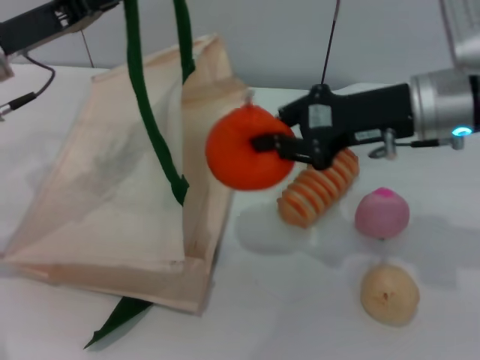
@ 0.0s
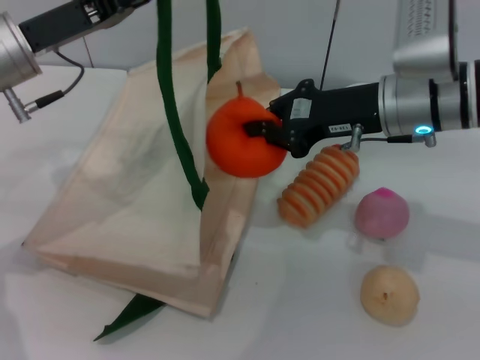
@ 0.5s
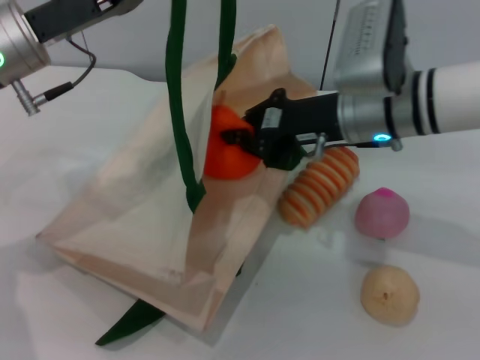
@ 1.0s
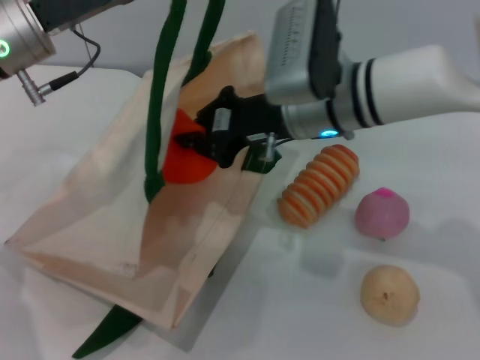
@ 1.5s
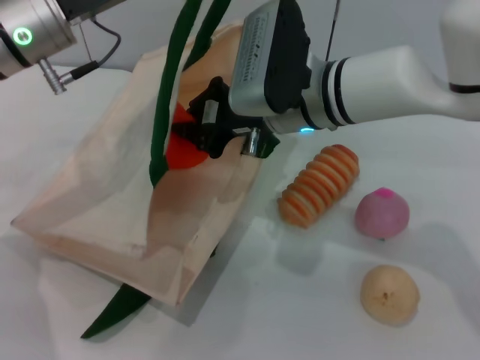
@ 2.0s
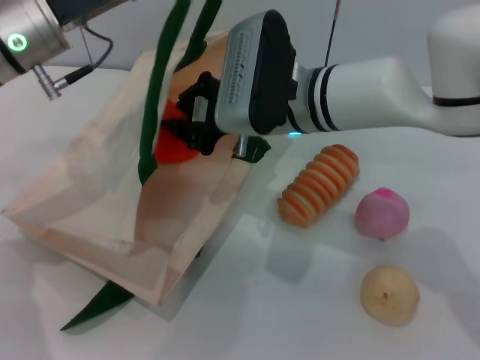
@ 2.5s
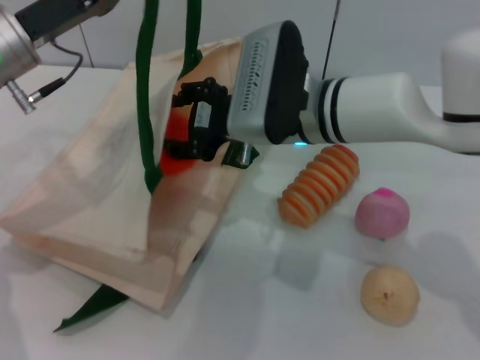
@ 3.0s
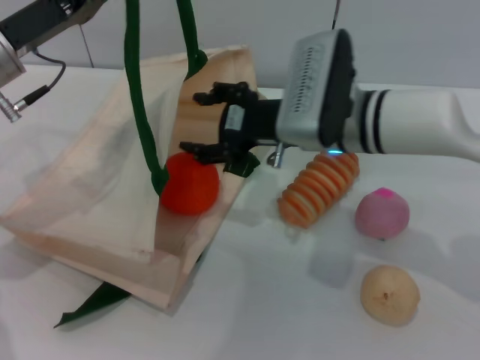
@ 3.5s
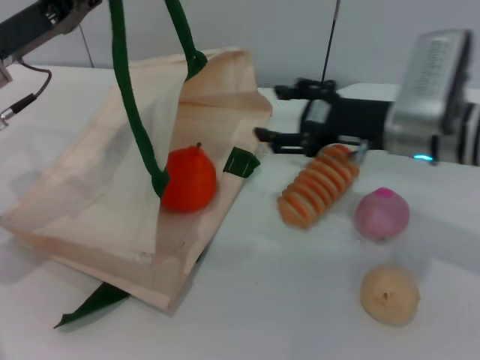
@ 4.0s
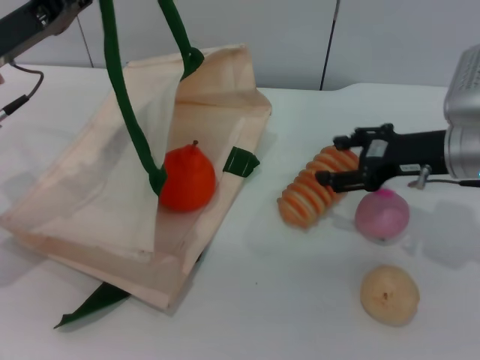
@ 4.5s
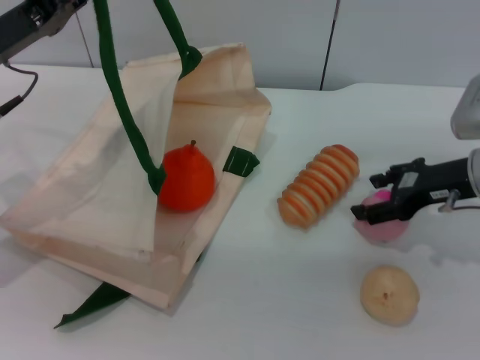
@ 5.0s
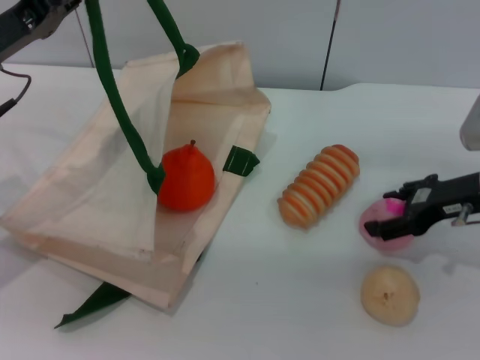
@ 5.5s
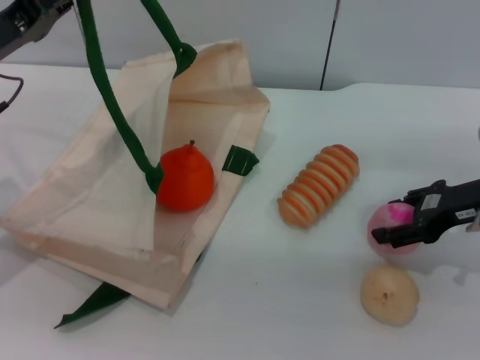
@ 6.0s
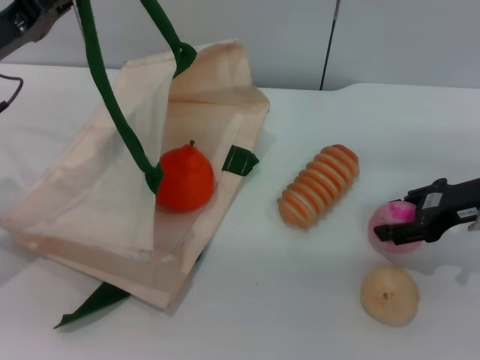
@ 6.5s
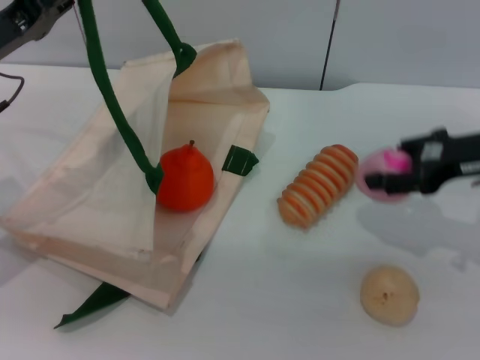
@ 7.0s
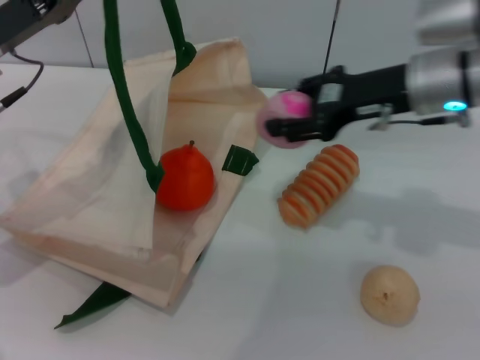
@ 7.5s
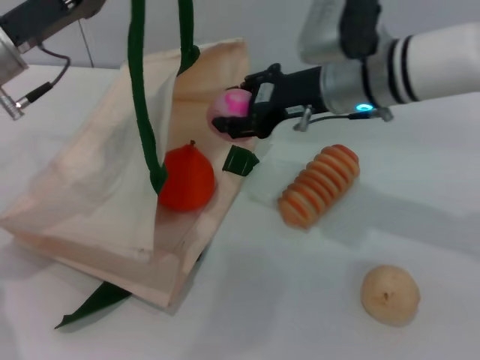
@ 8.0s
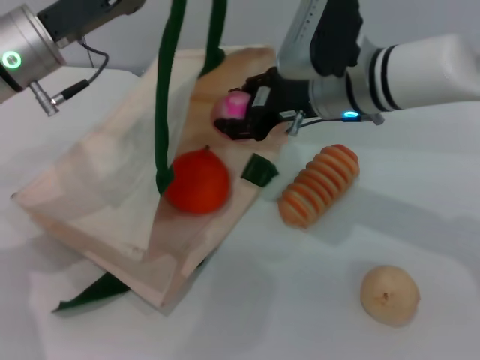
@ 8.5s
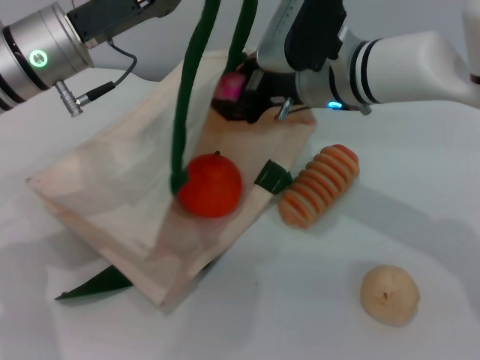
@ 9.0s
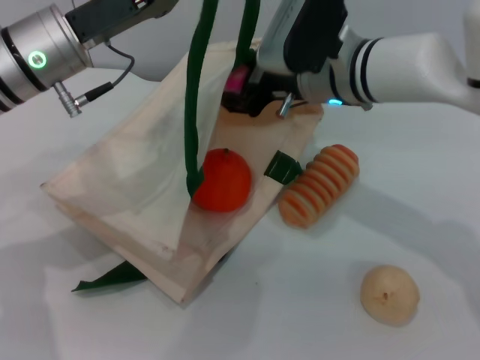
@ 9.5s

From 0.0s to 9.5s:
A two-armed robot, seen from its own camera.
Task of the whole recording: pick up the orange and peach from the table and place it in the white handbag.
Step, from 0.0s to 3.5s: Place the orange into the woven bag with the right gripper.
Step, from 4.0s to 7.0s: Pick up the peach with the right gripper.
From 0.0s to 2.0s: The left gripper moves to the right, about 5 cm; the right gripper travels to the left by about 15 cm.
From 2.0s to 4.0s: The left gripper goes approximately 5 cm to the left. Meanwhile the right gripper shifts roughly 10 cm to the right, and opens up.
From 4.0s to 5.5s: The right gripper heads to the right, covering some 10 cm.
From 5.5s to 7.5s: The right gripper is displaced to the left and upward by approximately 10 cm.
From 7.5s to 9.5s: The left gripper travels to the right by some 10 cm. Meanwhile the right gripper goes about 10 cm to the left.

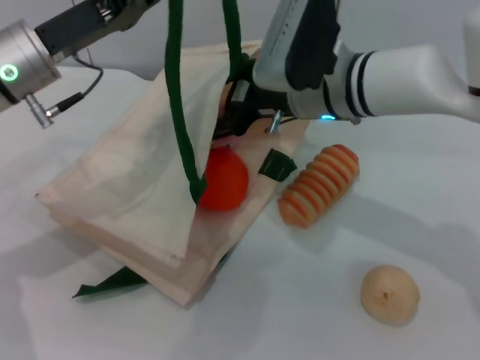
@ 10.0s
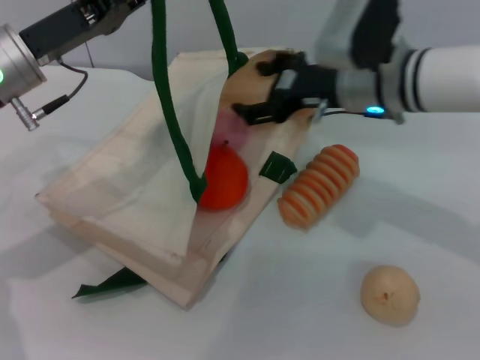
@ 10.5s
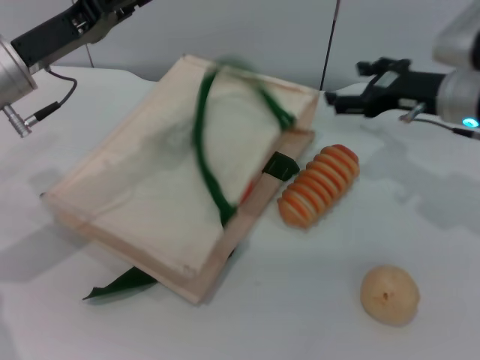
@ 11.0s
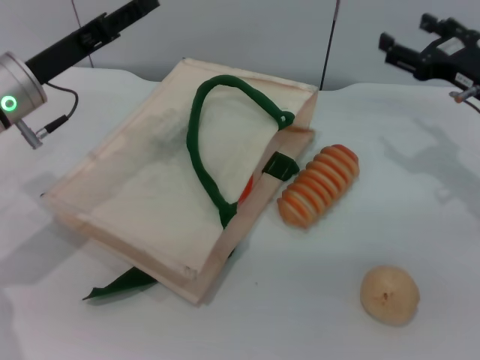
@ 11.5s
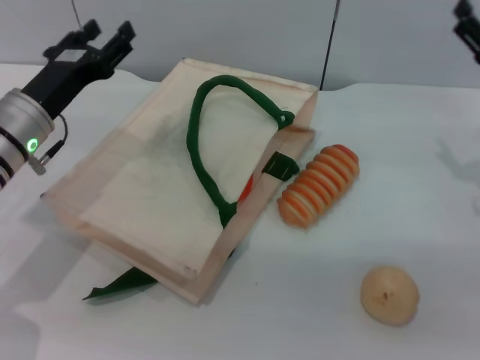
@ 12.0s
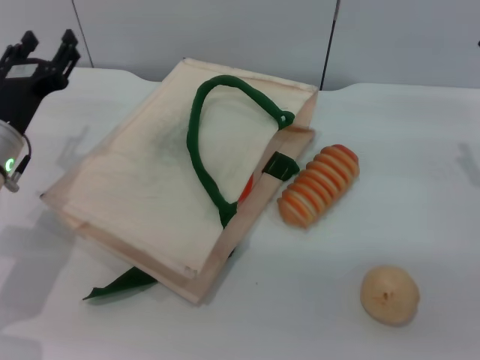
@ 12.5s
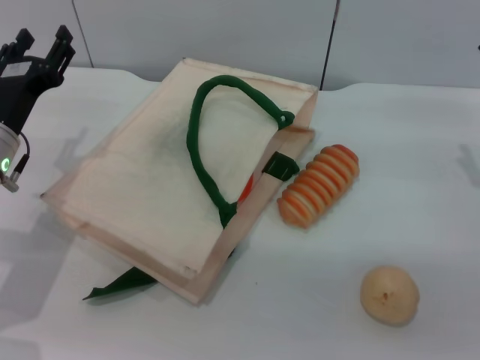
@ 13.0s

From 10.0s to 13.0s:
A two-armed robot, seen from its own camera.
Task of the whole recording: pick up the orange and peach from the table and place it in the white handbag.
Step, from 11.0s to 12.0s: Lower the woven bag with the left gripper to close it.
From 10.0s to 11.5s: The left gripper opens its fingers; the right gripper shifts approximately 20 cm to the right.
From 11.5s to 13.0s: The right gripper moves backward, some 5 cm; the left gripper shifts roughly 5 cm downward.
